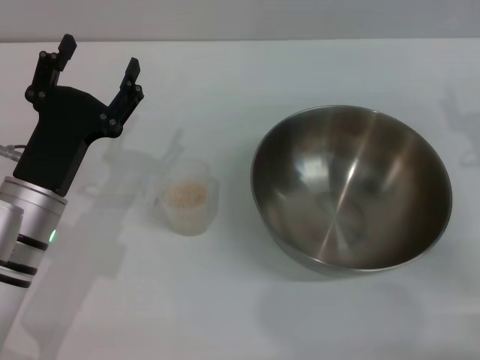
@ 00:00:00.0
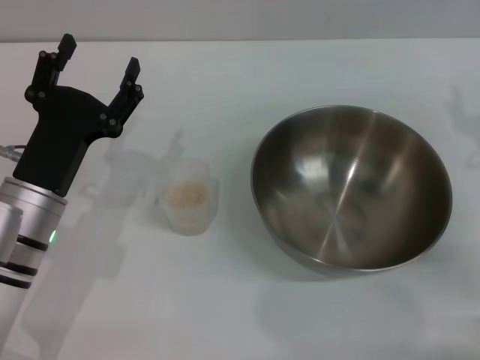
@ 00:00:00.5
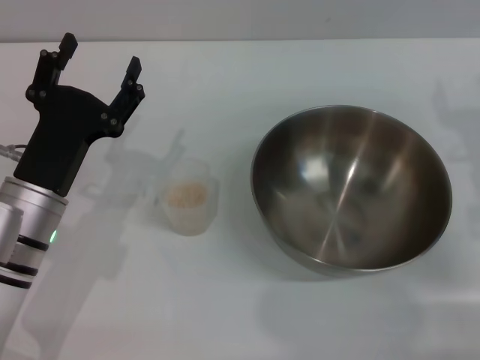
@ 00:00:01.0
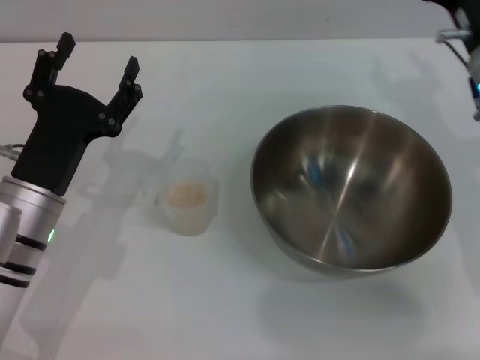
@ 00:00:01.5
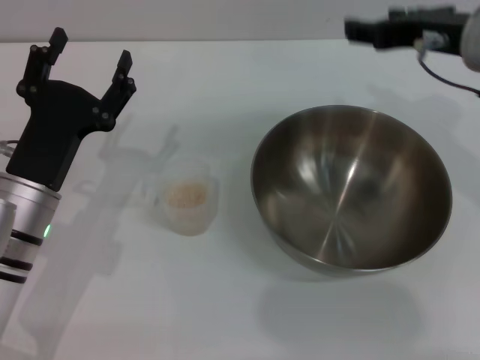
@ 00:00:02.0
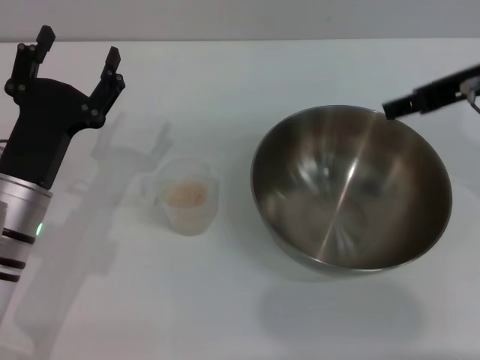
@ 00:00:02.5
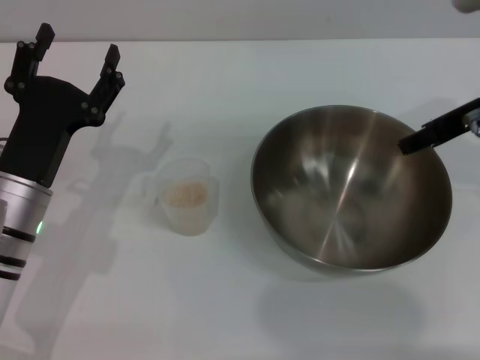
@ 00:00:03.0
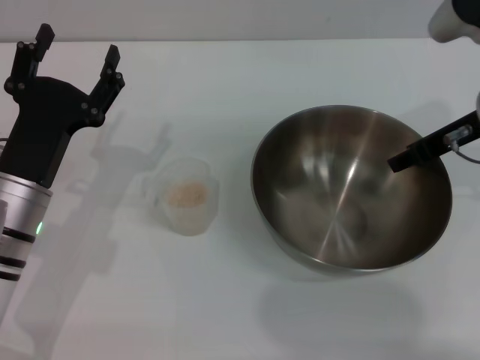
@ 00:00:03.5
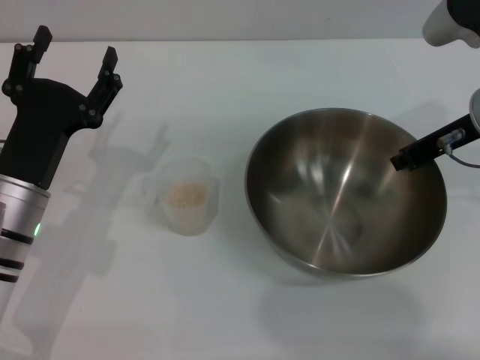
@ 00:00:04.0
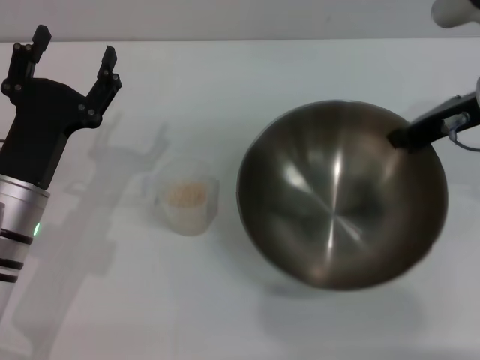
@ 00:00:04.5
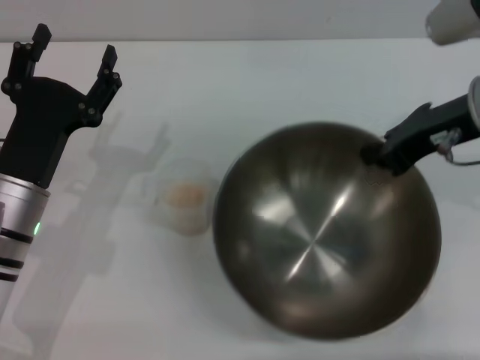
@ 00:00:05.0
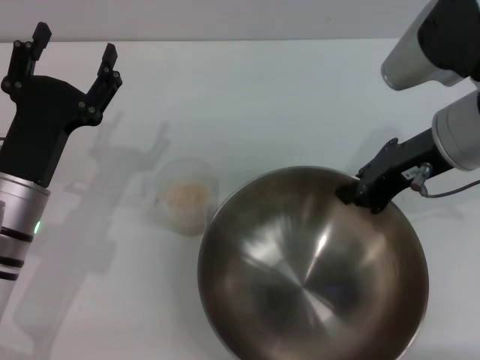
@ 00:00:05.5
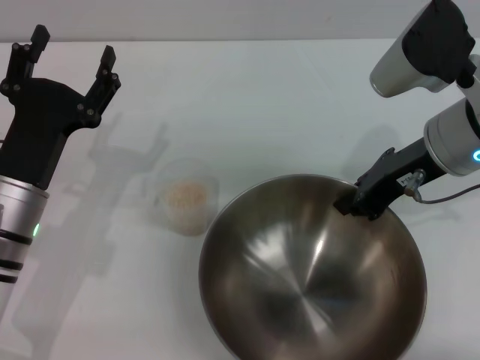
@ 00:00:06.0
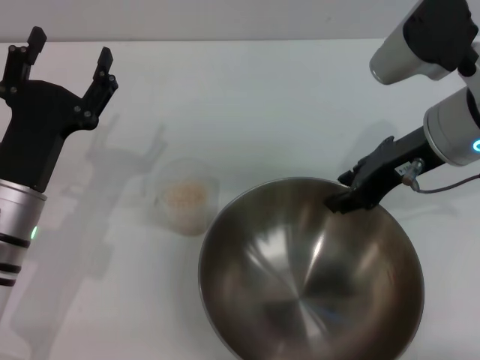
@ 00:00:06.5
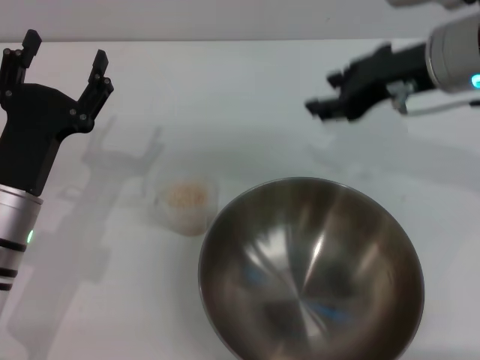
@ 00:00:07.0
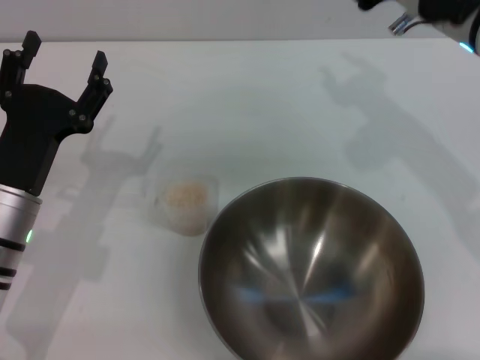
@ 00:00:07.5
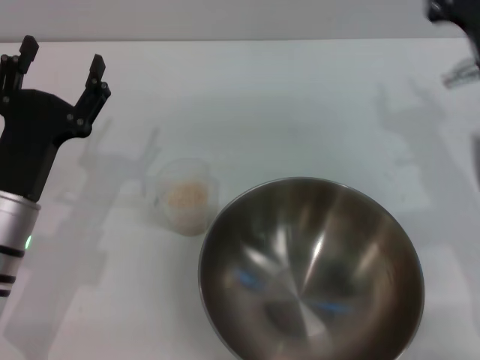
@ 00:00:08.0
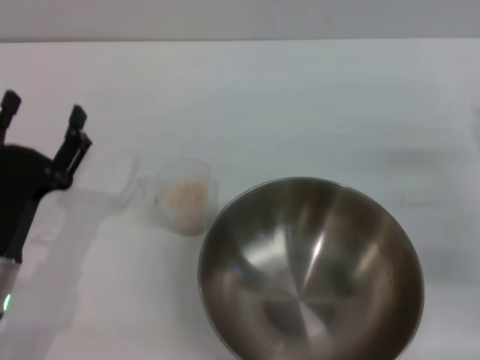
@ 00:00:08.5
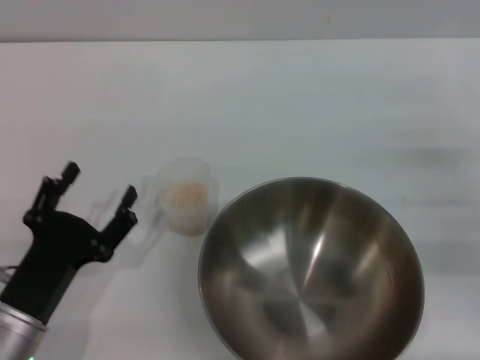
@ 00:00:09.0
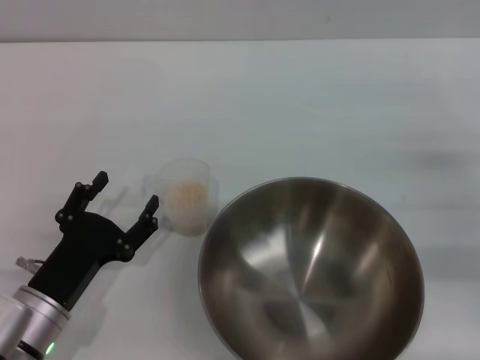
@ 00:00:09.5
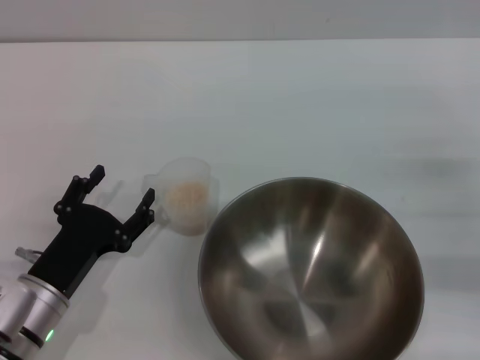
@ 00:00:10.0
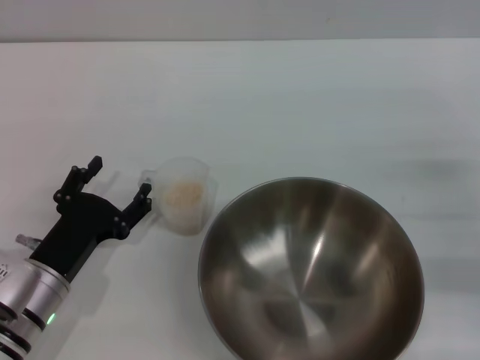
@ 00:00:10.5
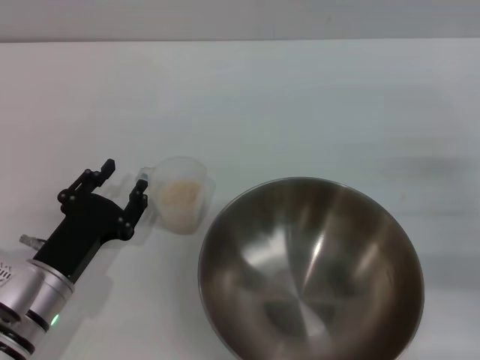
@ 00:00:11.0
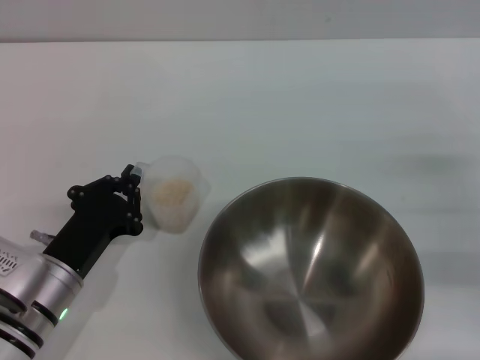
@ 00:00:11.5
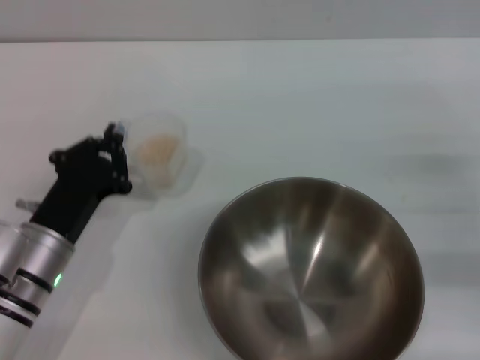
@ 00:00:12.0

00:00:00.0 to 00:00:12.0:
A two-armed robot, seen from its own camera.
Task of the whole recording: Place the bowl in the middle of the table with one hand and pour the rice from the grain cup into it with the other hand.
Step, 00:00:00.0 to 00:00:04.5: Pick up the bowl with the right gripper.
Step, 00:00:05.0 to 00:00:06.5: Place the bowl in the center of view with the right gripper.
00:00:00.0 to 00:00:02.0: The right gripper travels upward and to the left by about 15 cm.
00:00:02.0 to 00:00:04.0: The right gripper shifts about 5 cm downward, and closes its fingers.
00:00:04.0 to 00:00:06.0: The right gripper changes place by approximately 5 cm, and closes.
00:00:06.0 to 00:00:08.0: The right gripper moves roughly 5 cm, and opens.
00:00:08.0 to 00:00:10.0: The right gripper travels to the right and downward by approximately 15 cm. The left gripper travels downward and backward by some 10 cm.
00:00:10.0 to 00:00:12.0: The left gripper closes its fingers.

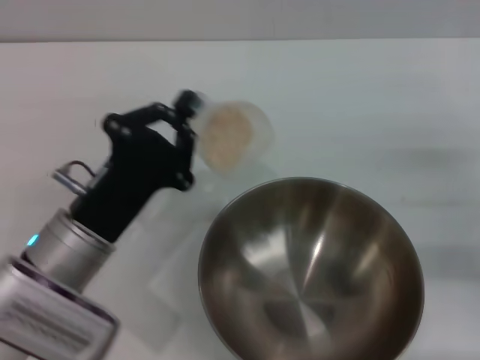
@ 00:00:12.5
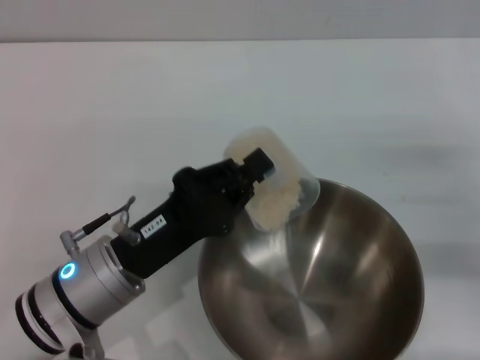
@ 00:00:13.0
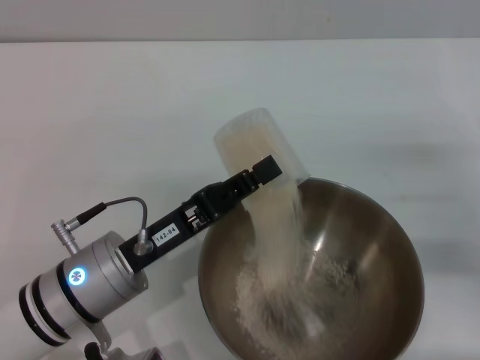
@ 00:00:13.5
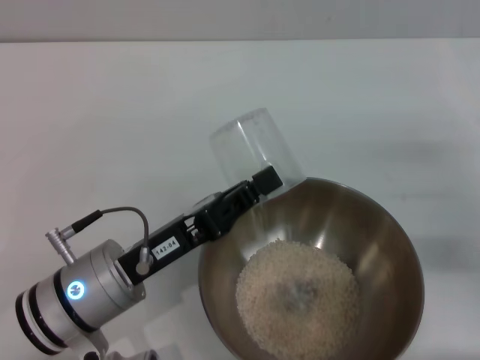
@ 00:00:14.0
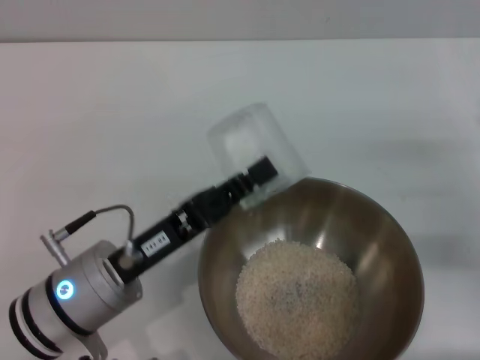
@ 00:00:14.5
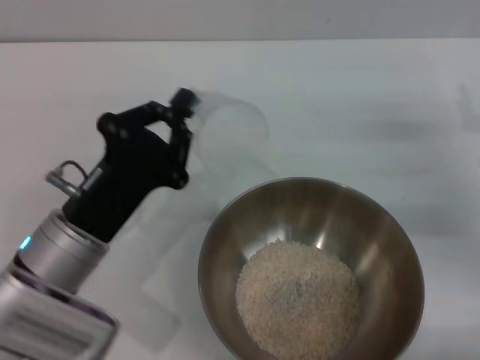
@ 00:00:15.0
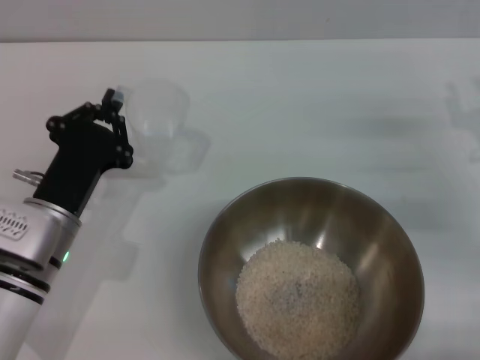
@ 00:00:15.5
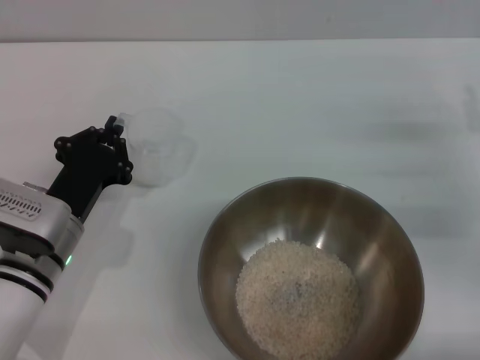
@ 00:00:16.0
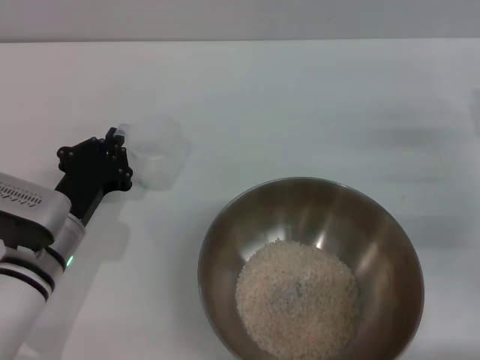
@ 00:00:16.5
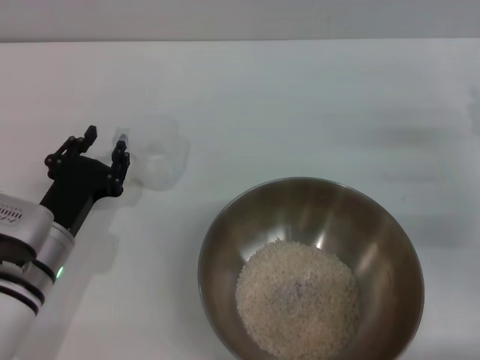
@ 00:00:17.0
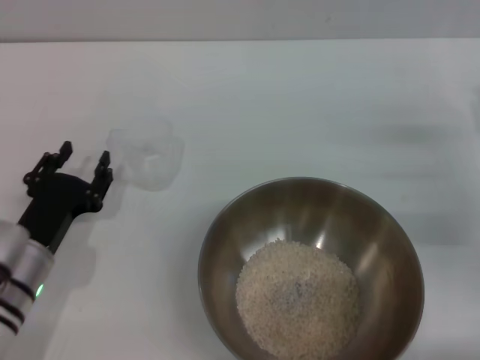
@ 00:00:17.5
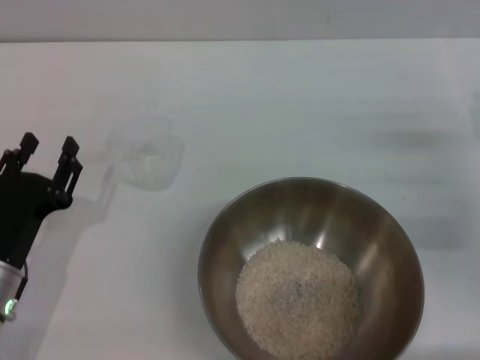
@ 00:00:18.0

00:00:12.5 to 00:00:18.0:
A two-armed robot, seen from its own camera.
Task of the whole recording: Place the bowl in the middle of the table with one hand and pour the rice from the grain cup into it with the other hand.
Step, 00:00:12.5 to 00:00:14.5: Pour the rice from the cup into the bowl with the left gripper.
Step, 00:00:15.0 to 00:00:17.5: Place the cup on the table with the left gripper.
00:00:14.5 to 00:00:16.0: The left gripper is displaced forward by about 5 cm.
00:00:16.0 to 00:00:18.0: The left gripper is displaced backward by approximately 5 cm, and opens its fingers.
